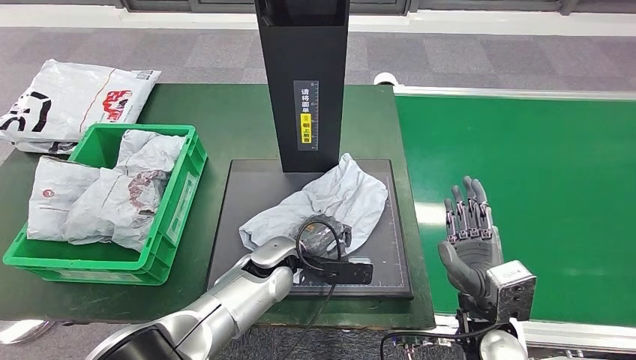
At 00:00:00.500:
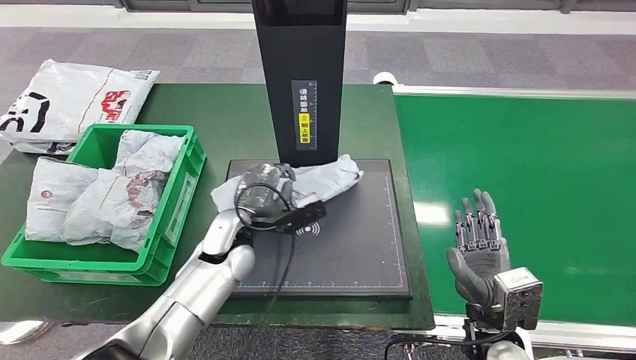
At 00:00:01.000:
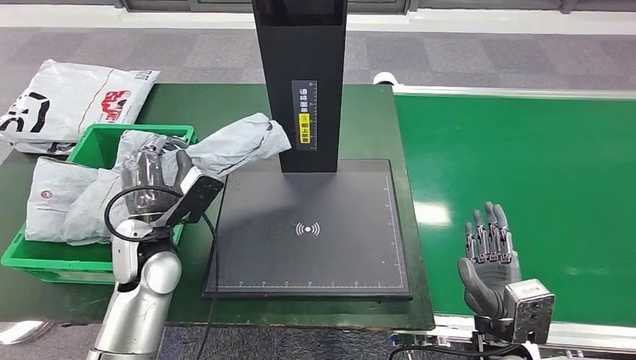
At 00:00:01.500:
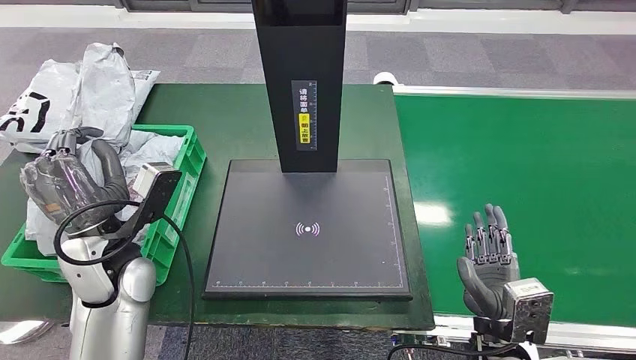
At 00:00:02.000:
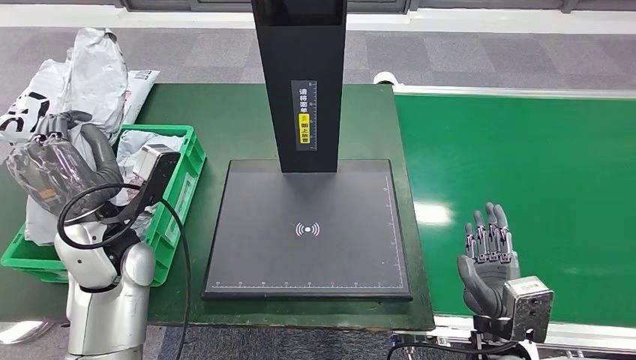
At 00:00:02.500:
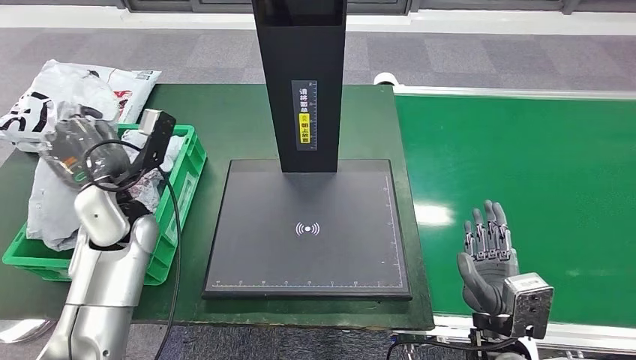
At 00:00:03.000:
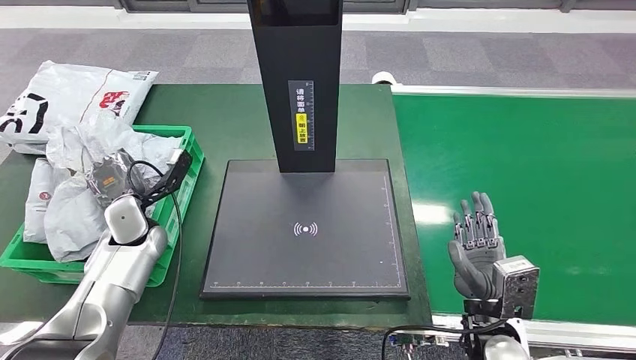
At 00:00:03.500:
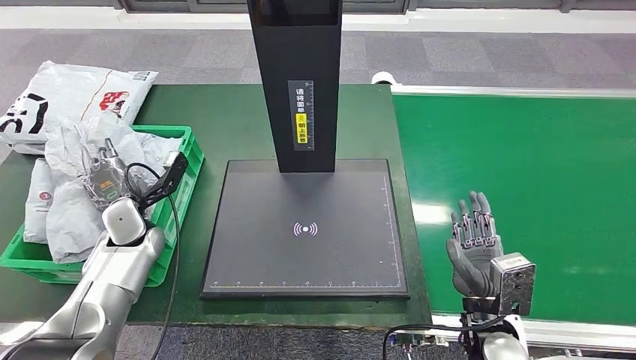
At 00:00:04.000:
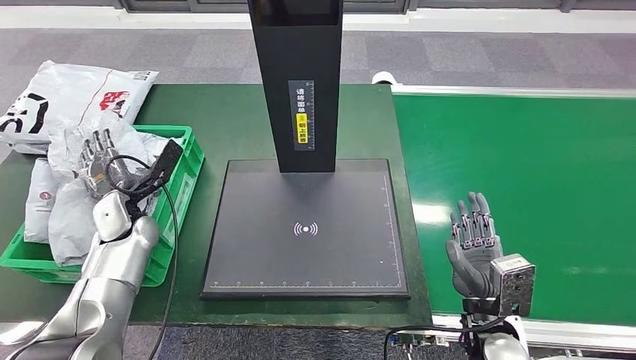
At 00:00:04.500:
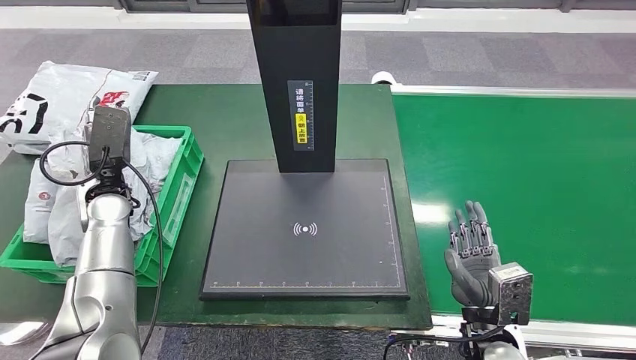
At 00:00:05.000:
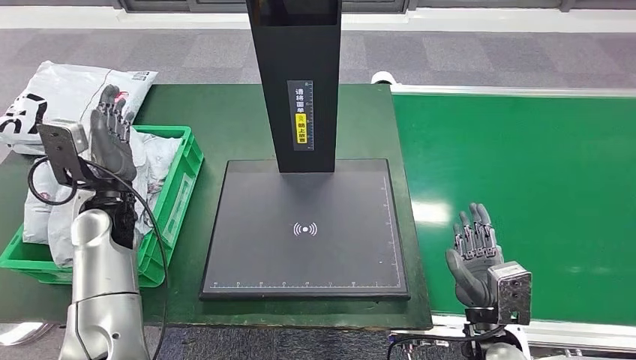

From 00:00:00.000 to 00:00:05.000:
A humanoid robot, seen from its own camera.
Step, from 00:00:02.500 to 00:00:05.000: Place the parcel into the delivery box.
